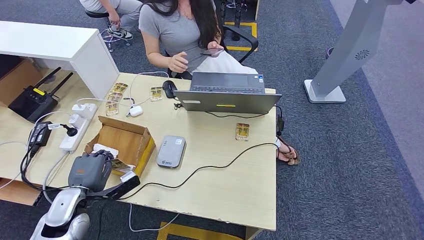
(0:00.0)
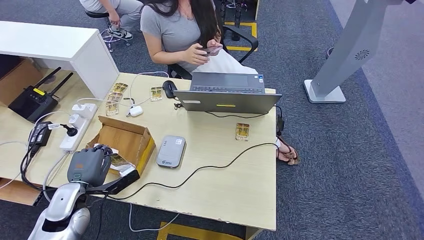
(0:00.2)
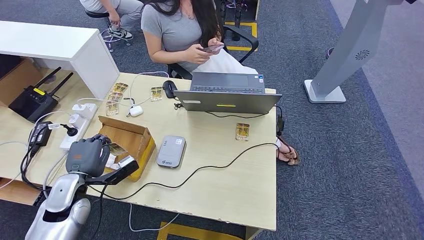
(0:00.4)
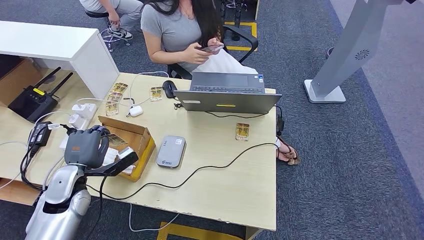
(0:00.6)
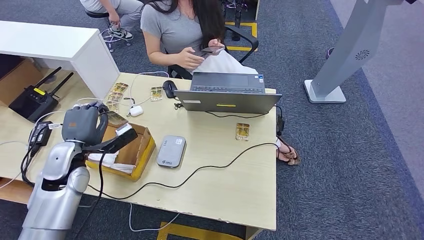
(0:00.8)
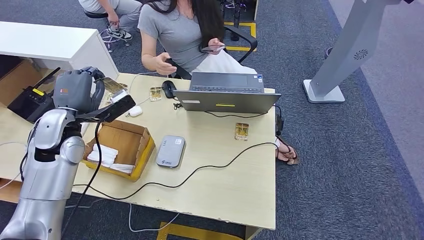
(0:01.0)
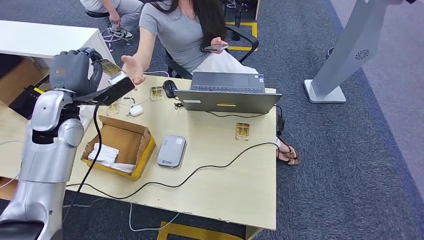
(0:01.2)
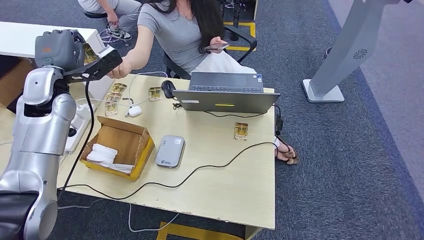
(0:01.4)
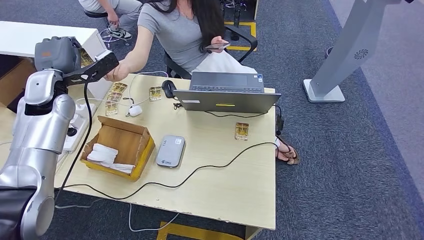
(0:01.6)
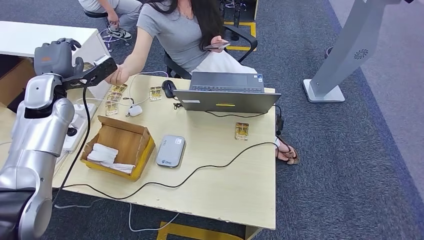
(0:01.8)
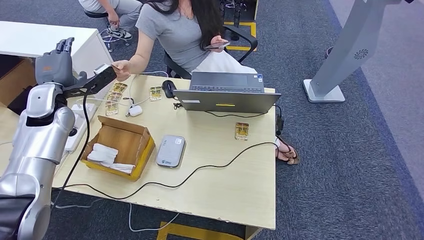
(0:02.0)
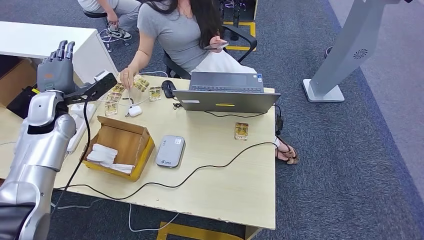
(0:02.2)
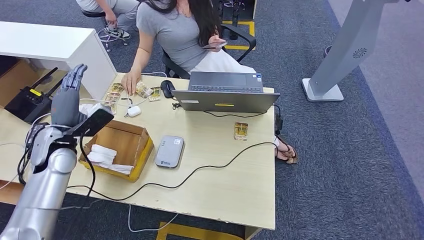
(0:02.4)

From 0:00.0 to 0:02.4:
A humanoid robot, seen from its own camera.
Step, from 0:00.6 to 0:02.4: Hand the room key to the person.
From 0:00.0 to 0:01.2: The left hand travels upward and forward by about 25 cm.
